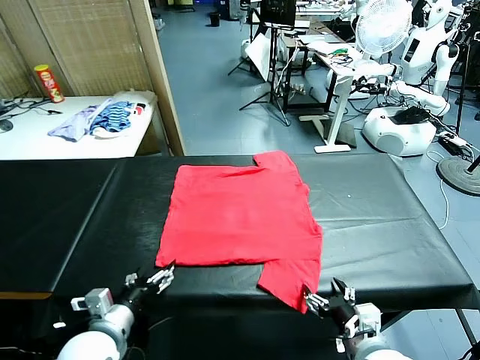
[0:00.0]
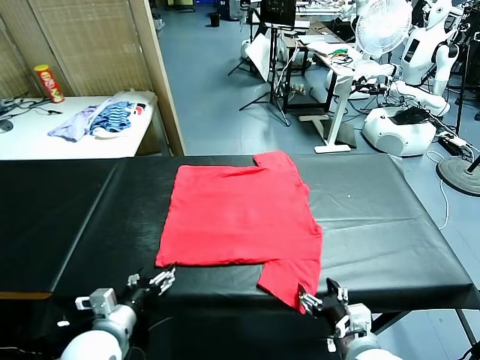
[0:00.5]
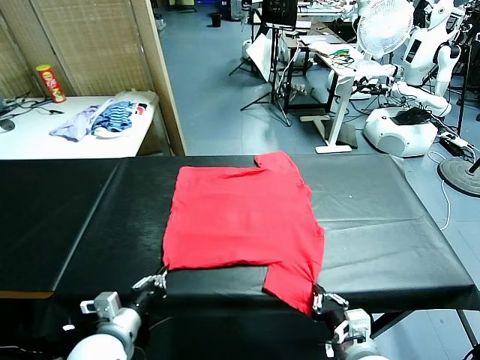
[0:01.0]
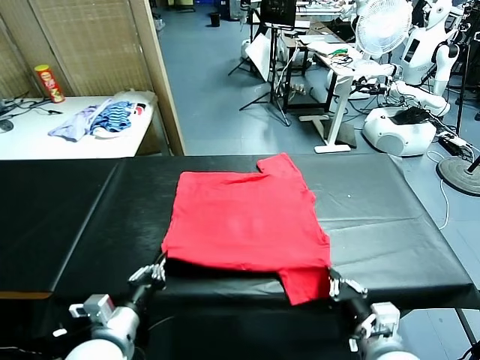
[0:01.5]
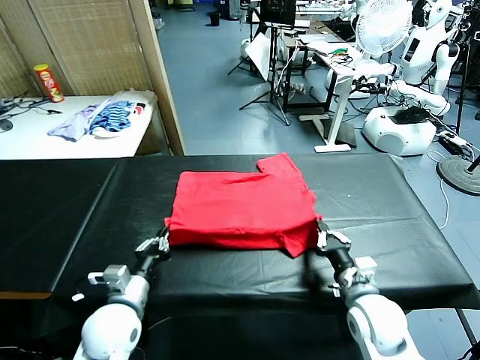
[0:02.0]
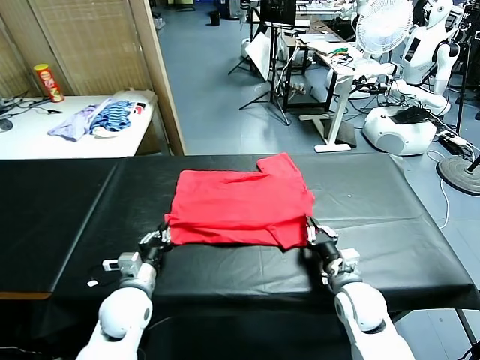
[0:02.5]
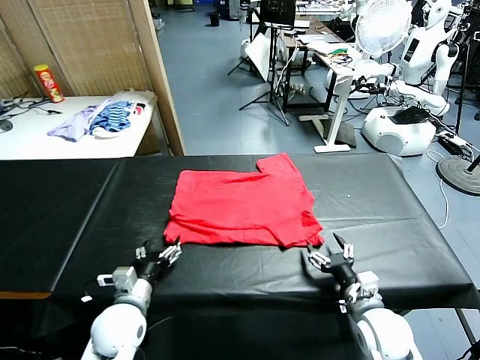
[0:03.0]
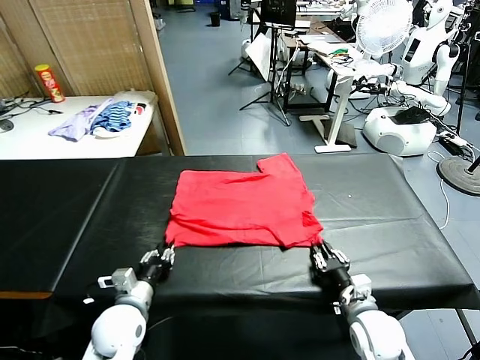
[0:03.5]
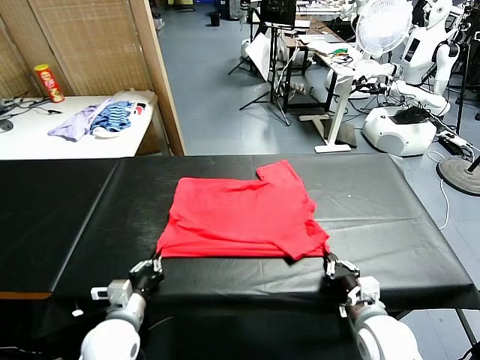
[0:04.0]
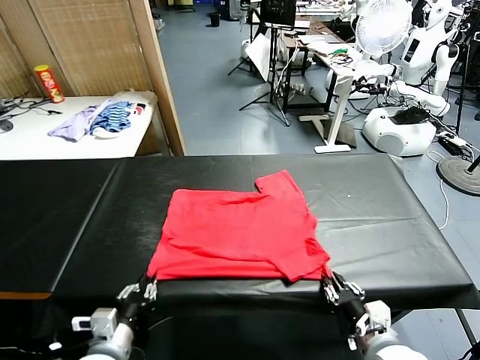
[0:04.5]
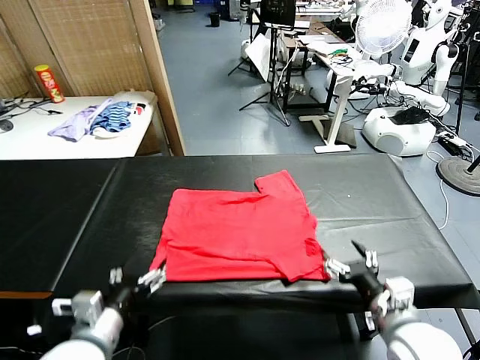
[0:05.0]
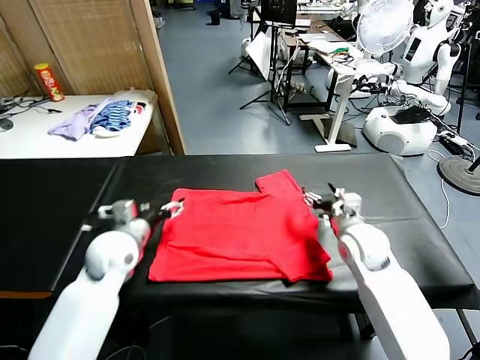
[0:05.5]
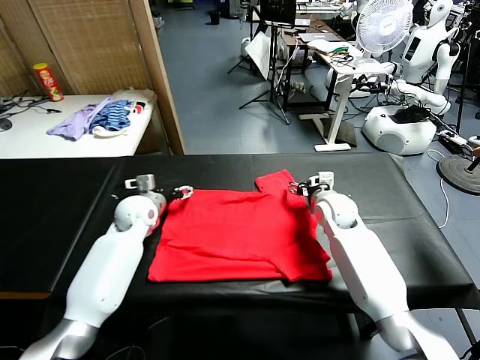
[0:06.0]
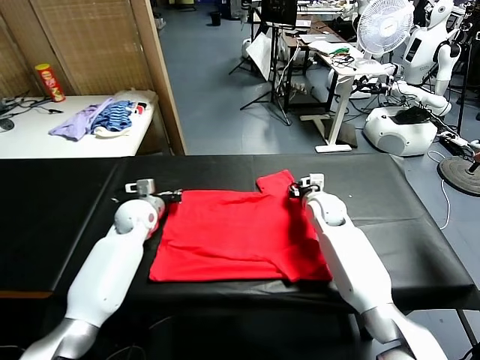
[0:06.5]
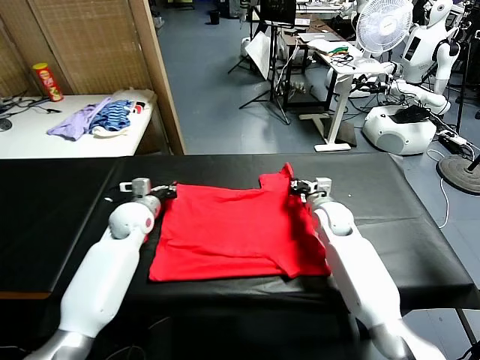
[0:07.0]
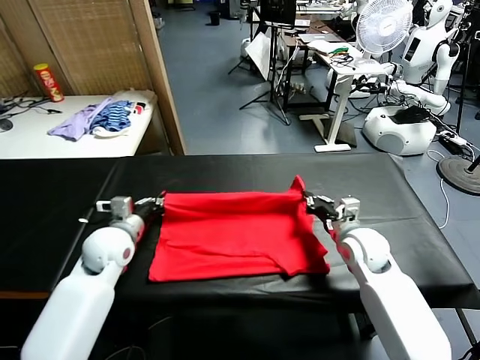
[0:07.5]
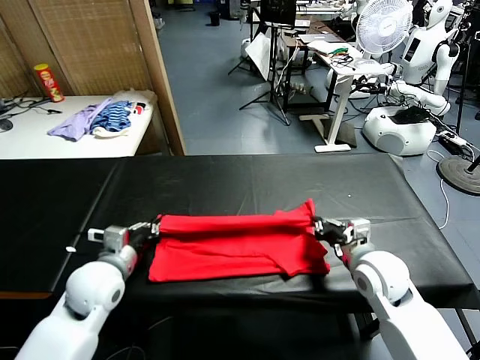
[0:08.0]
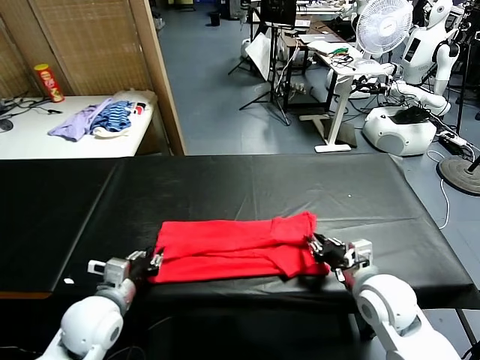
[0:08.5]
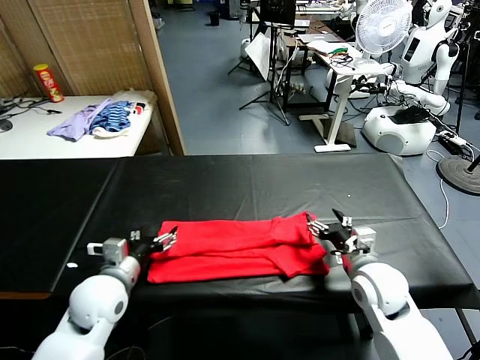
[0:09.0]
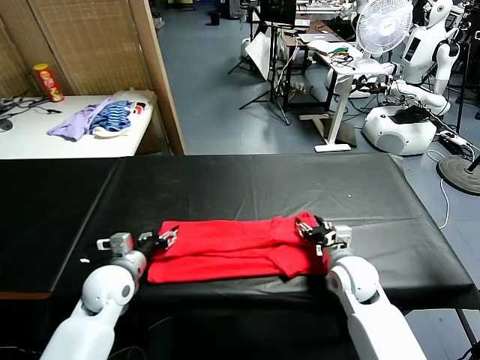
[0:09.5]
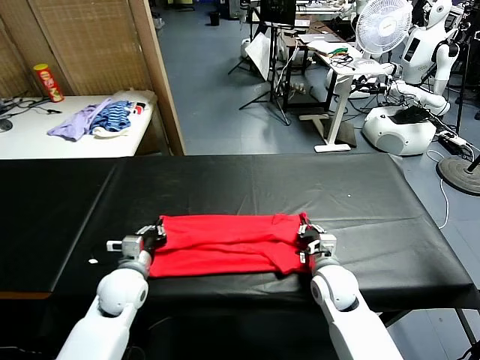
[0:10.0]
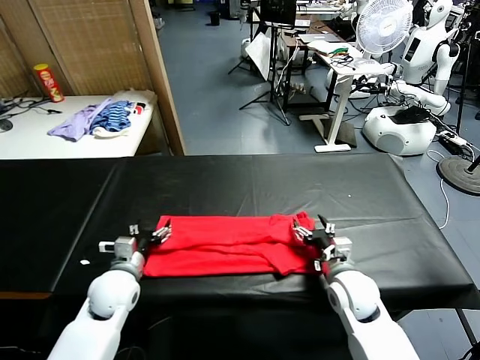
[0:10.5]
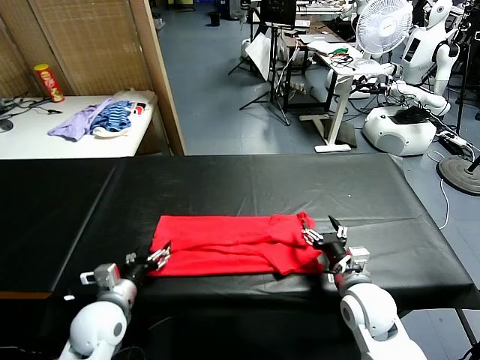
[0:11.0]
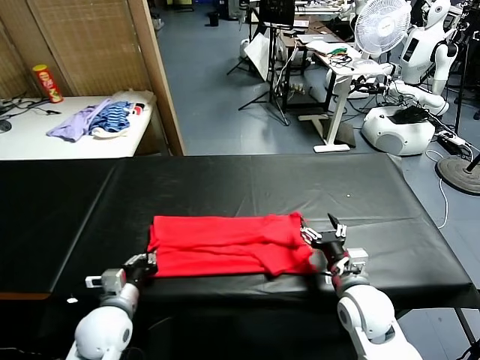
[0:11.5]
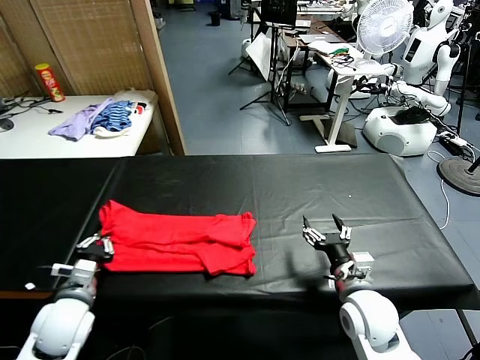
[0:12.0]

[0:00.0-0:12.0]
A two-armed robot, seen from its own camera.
Task of the whole recording: fold and organize the clothes.
Step, 0:00.0 to 0:01.0: use both grippers simultaneously to clamp the lower edge of the clothing fabric.
Step, 0:01.5 to 0:02.5: use both grippers to drag the lower edge of the fabric forward and fold it over the upper edge.
Step, 0:03.0 to 0:04.5: Drag the clothes downward with both gripper.
Step, 0:05.0 to 0:07.0: use both grippers simultaneously to clamp the upper edge of the clothing fabric.
Step, 0:07.5 to 0:08.5: use both grippers to drag the upper edge of the fabric backward and fold it over the lower edge.
Step, 0:09.0 to 0:11.5: use the left gripper to clamp the left edge of the fabric.
0:02.0 to 0:04.0: The right gripper is displaced backward by approximately 10 cm, and opens, then closes again. Meanwhile the left gripper opens, then closes once more.
0:04.0 to 0:06.0: Both grippers travel together forward, about 30 cm. The left gripper opens up. The right gripper opens up.
0:06.0 to 0:08.0: Both grippers travel together backward, some 20 cm. The right gripper closes up. The left gripper closes up.
0:08.0 to 0:10.0: The left gripper goes approximately 10 cm downward, and opens and closes again; the right gripper travels downward and to the left by about 10 cm, and opens, then closes once more.
0:10.0 to 0:12.0: The left gripper shifts some 10 cm backward and to the left, and opens, then closes again. The right gripper moves backward and upward, approximately 10 cm, and opens its fingers.

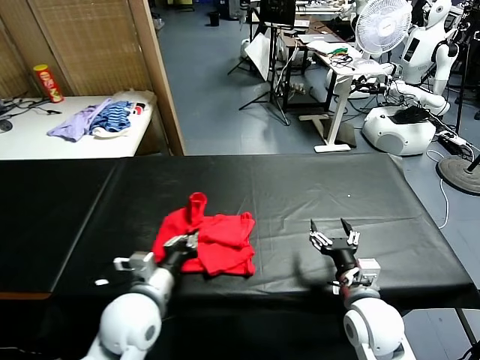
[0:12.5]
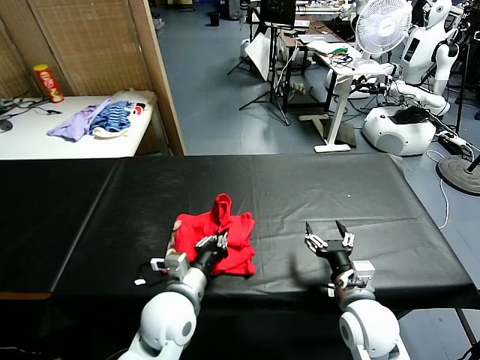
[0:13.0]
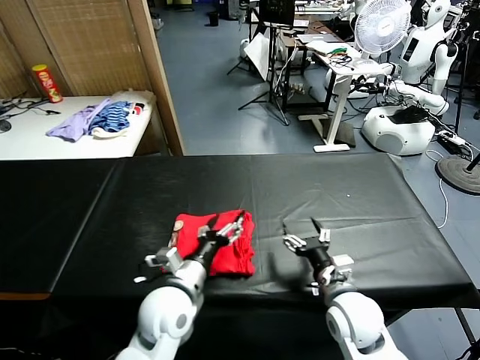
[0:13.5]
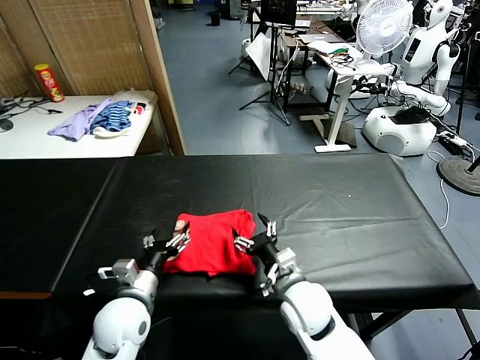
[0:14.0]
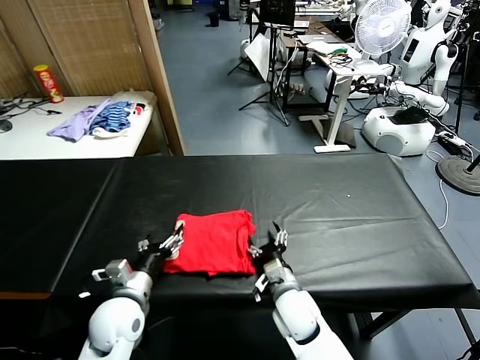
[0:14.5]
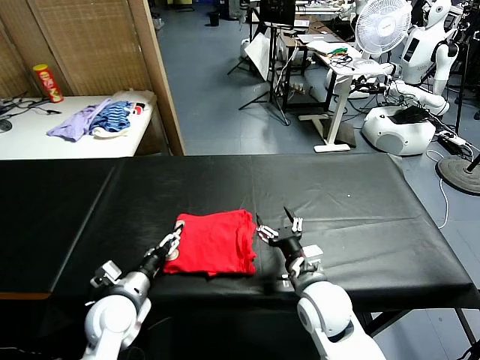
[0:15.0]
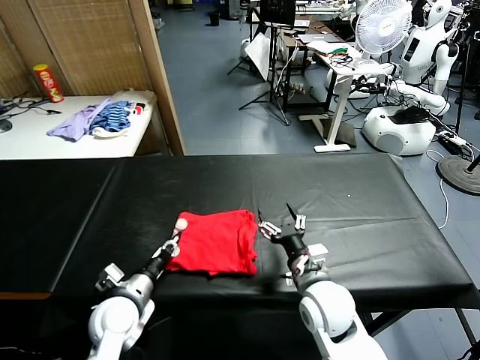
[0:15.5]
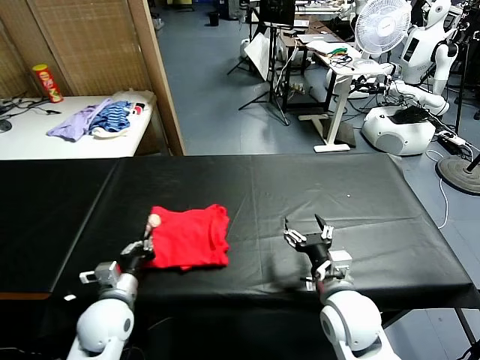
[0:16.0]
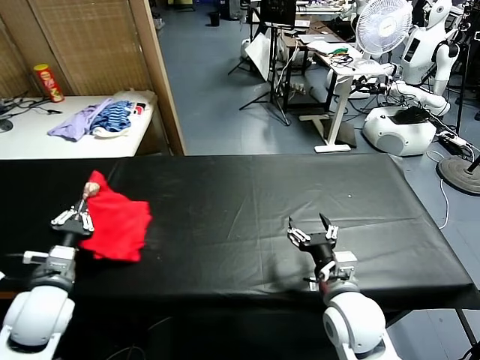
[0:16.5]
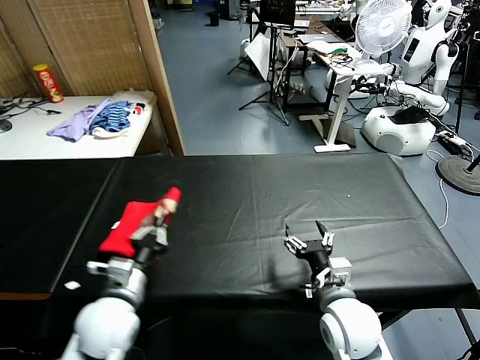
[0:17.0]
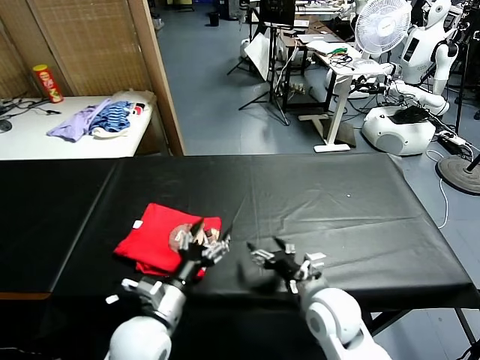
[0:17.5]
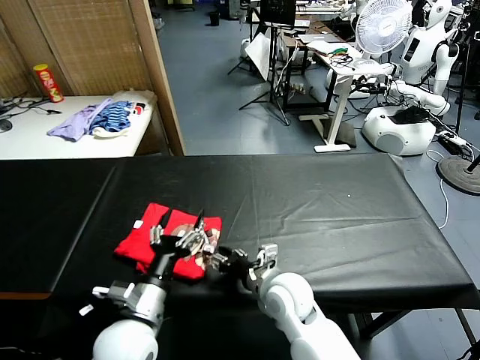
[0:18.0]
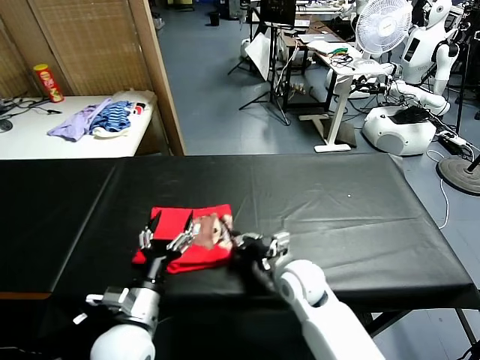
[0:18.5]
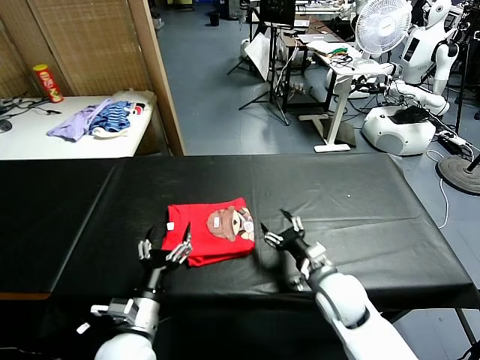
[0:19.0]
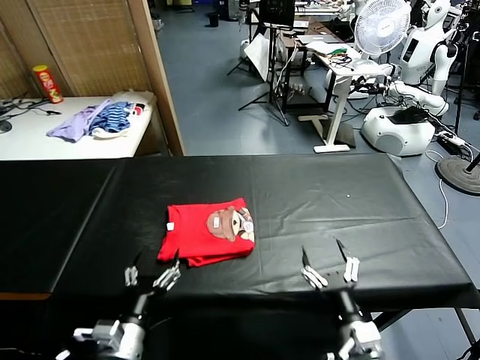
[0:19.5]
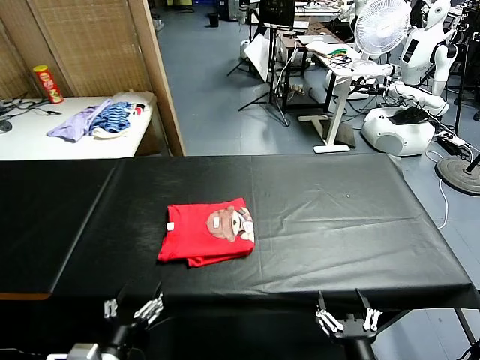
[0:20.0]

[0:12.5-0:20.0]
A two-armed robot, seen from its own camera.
Task of the whole recording: fold and organize the clothes.
Step, 0:14.0 to 0:17.0: Flip the folded clothes over with left gripper.
Step, 0:17.5 to 0:18.5: Drag the clothes to the center of the table.
0:12.5 to 0:14.5: The left gripper shifts about 10 cm downward and to the left, and opens its fingers; the right gripper heads to the left and downward, covering some 15 cm.
0:14.5 to 0:16.5: The right gripper goes roughly 15 cm upward and to the right. Meanwhile the left gripper is displaced to the left and upward by some 15 cm, and closes up.
0:16.5 to 0:18.0: The right gripper is displaced to the left and forward by approximately 10 cm. Meanwhile the left gripper travels to the right by some 15 cm, and opens.
0:18.0 to 0:20.0: The left gripper moves backward, about 10 cm, while the right gripper travels backward and to the right by roughly 25 cm, and closes and opens again.

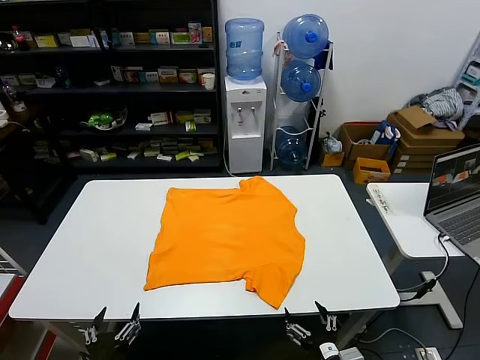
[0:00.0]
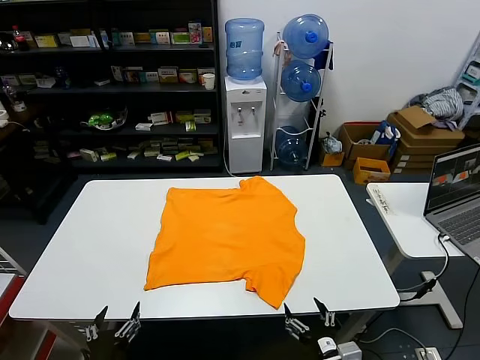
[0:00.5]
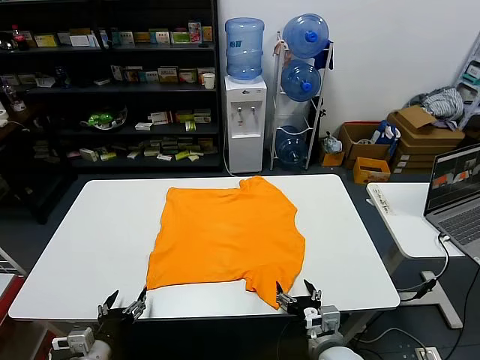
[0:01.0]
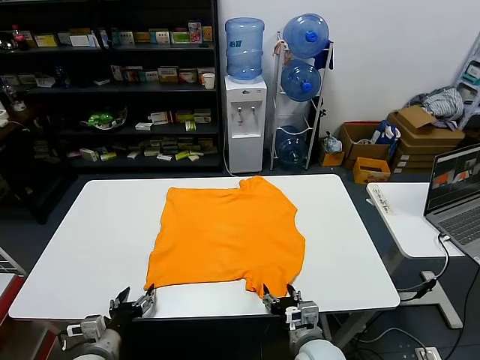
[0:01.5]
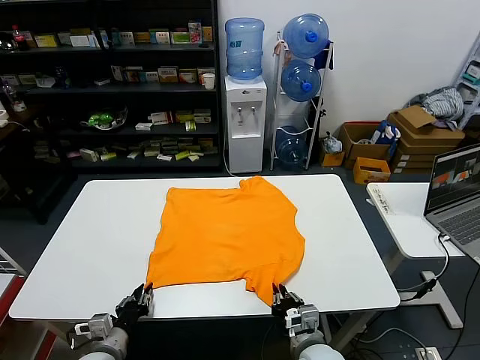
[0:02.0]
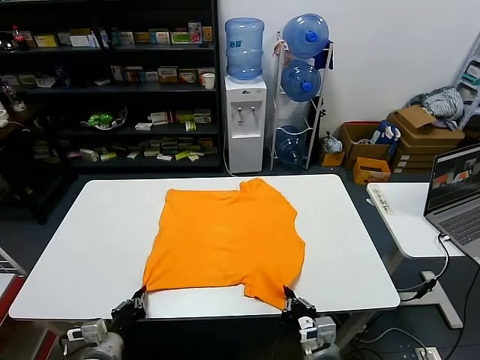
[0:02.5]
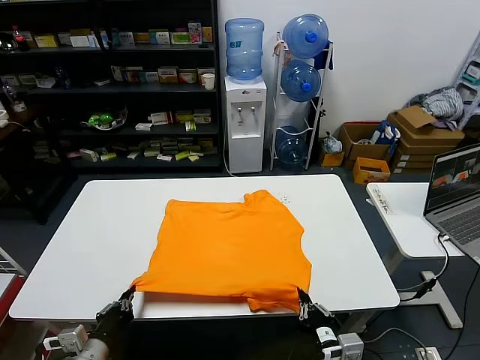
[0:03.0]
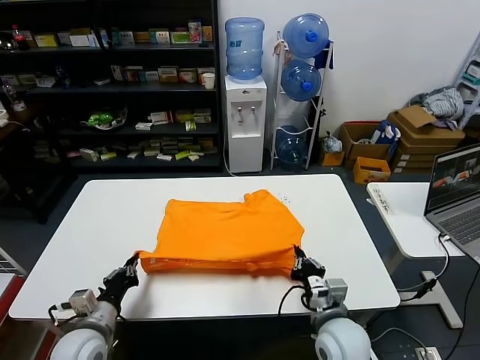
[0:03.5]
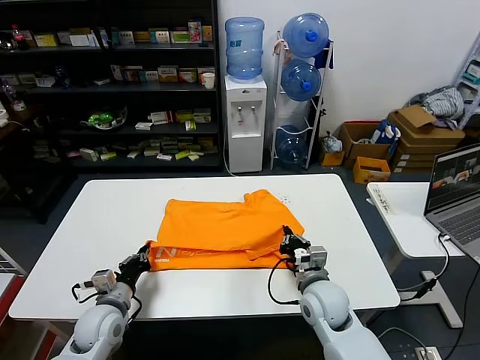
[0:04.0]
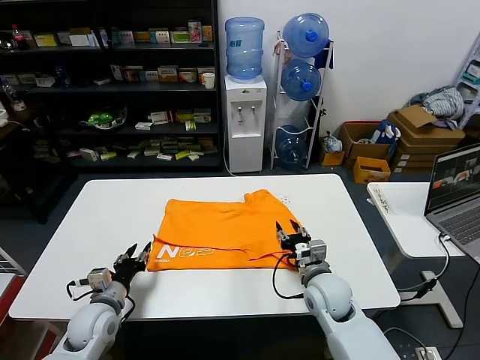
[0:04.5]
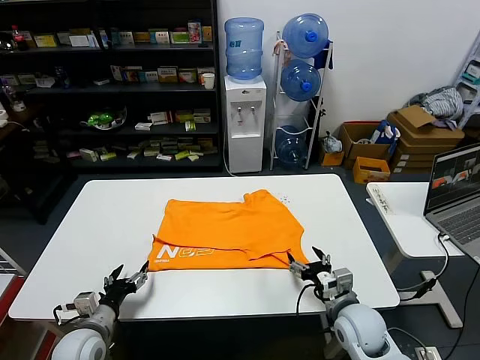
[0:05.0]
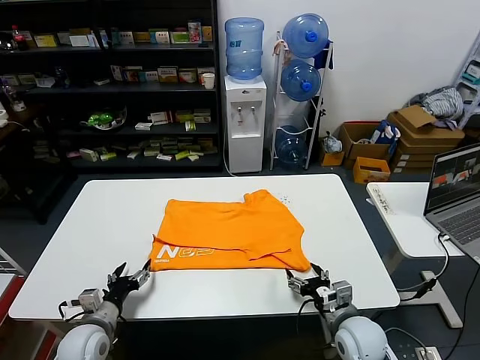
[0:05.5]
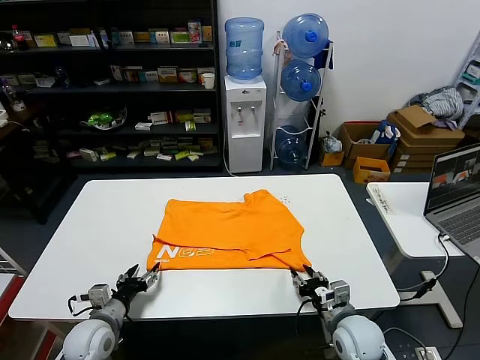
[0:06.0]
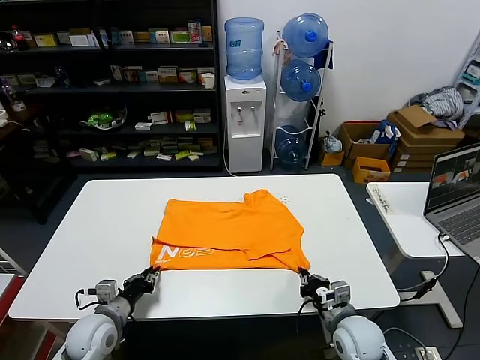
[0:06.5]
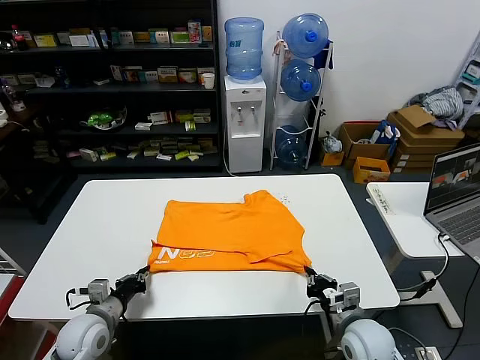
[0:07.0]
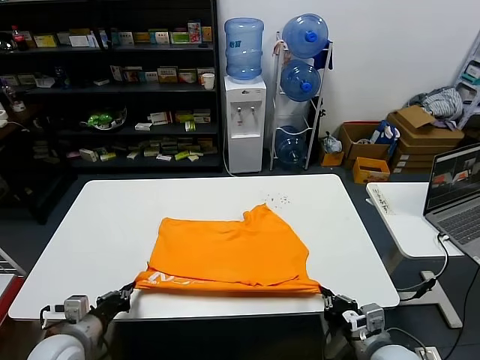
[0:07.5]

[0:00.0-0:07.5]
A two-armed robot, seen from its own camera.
Task of the whole recording: fold and organize the clothes.
Step, 0:00.0 to 0:02.0: use both grippers simultaneously to clamp the lower edge of the clothing fabric.
Step, 0:02.5 to 0:04.0: use both grippers to drag the lower edge of the fabric forward and fold it over the upper edge.
0:02.0 to 0:04.0: The left gripper moves forward, approximately 10 cm. Meanwhile the right gripper goes some 15 cm forward.
0:04.0 to 0:05.5: The right gripper goes about 10 cm to the right and backward, and opens up; the left gripper ends up about 5 cm from where it was, and opens up.
0:05.5 to 0:07.5: The left gripper goes some 5 cm upward, and closes its fingers. Meanwhile the right gripper heads backward, covering roughly 5 cm, and closes.
